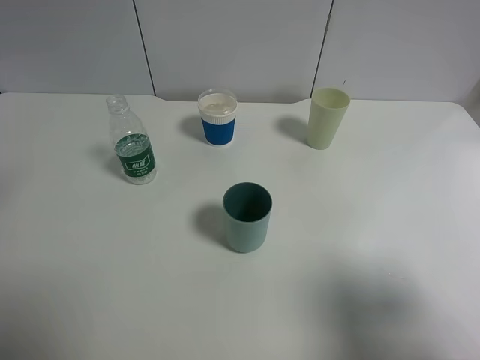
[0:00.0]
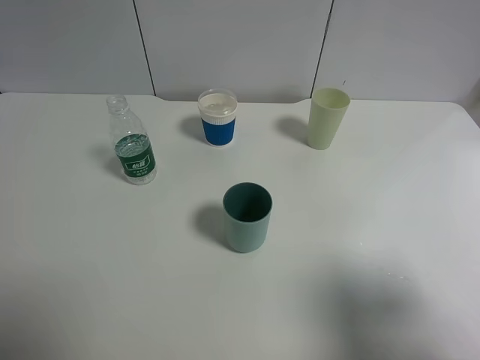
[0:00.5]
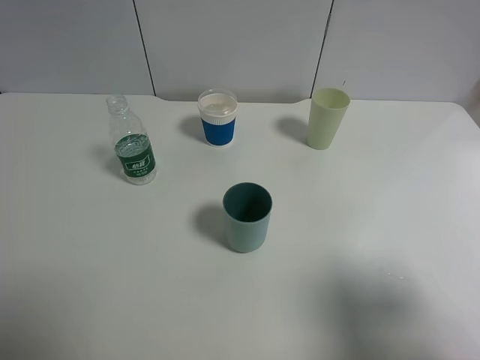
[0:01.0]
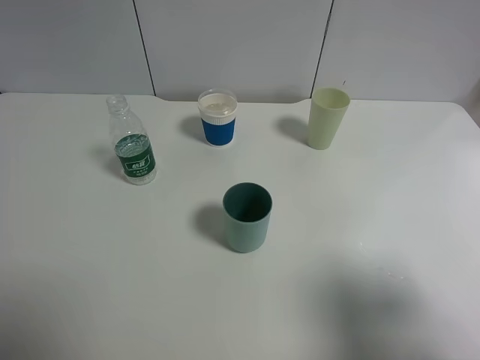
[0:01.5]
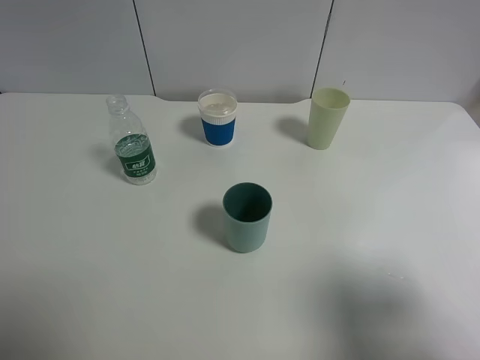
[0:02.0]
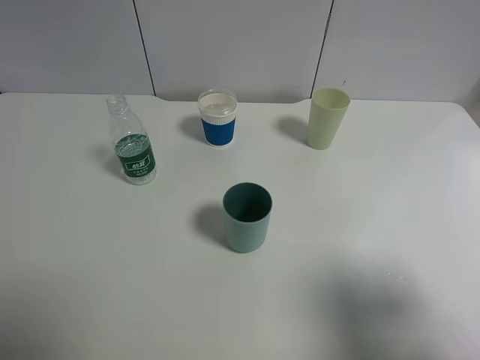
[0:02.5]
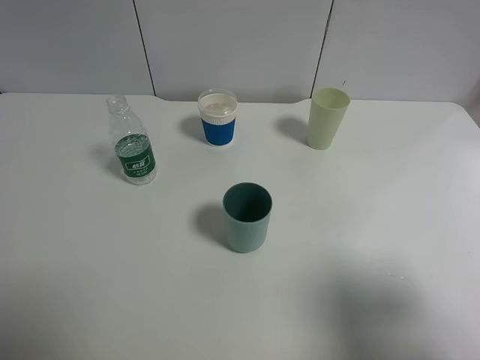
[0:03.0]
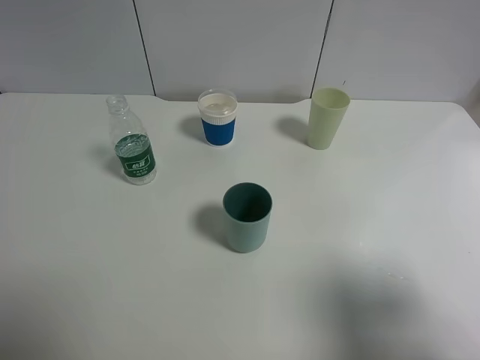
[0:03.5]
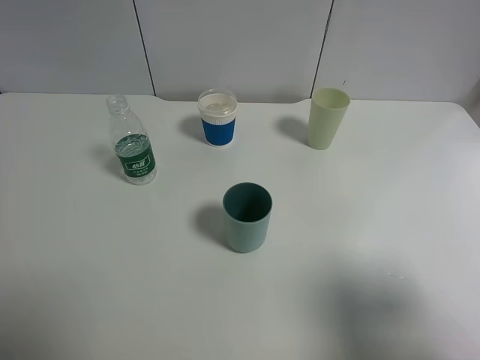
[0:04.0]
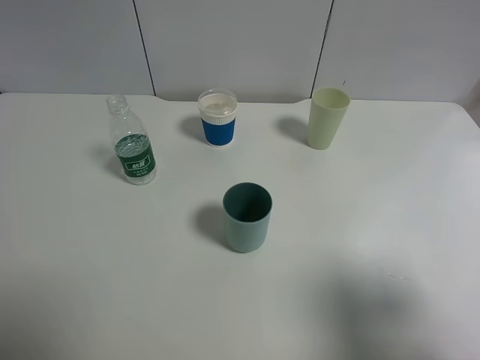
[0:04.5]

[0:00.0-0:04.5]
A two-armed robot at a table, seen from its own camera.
Task of the whole recording: use a gripper to hold the bottle of the drink and pour it into a random cup.
0:02.0 to 0:04.5: Neither gripper changes place.

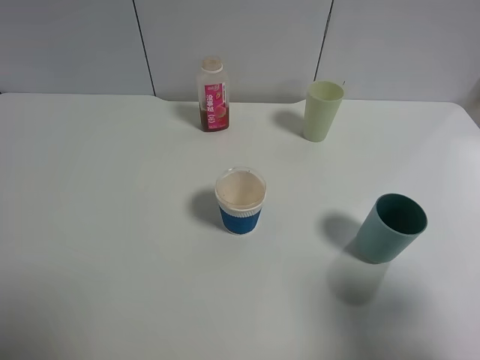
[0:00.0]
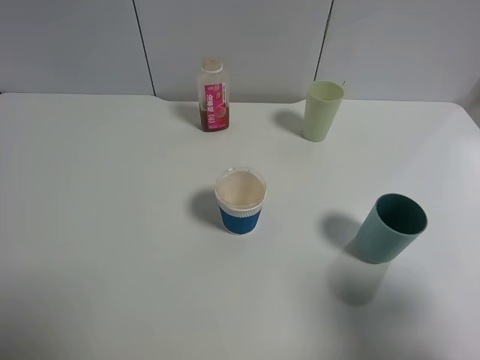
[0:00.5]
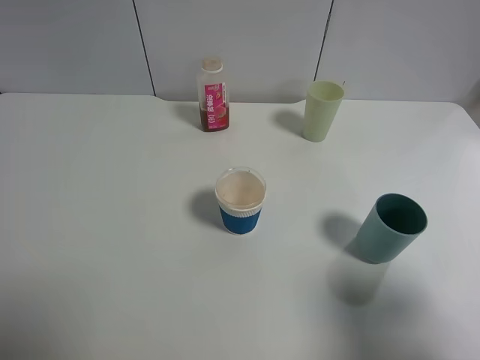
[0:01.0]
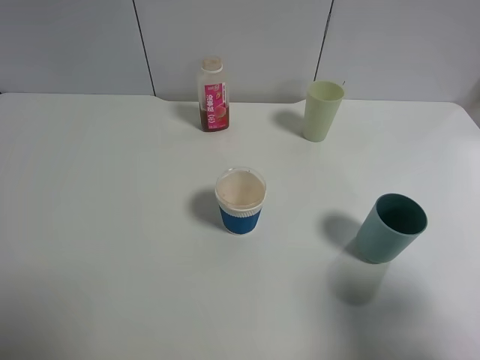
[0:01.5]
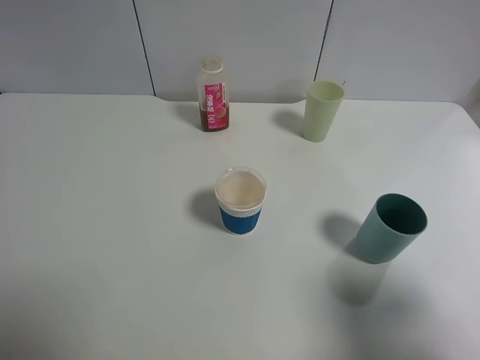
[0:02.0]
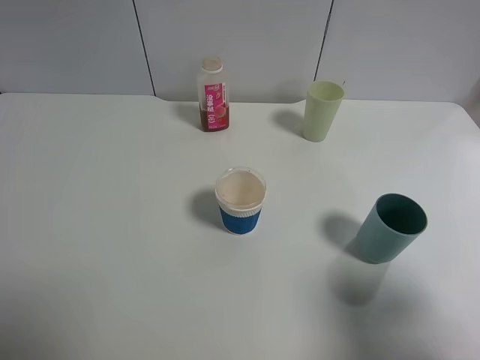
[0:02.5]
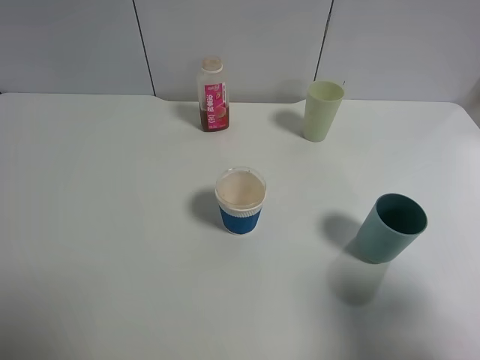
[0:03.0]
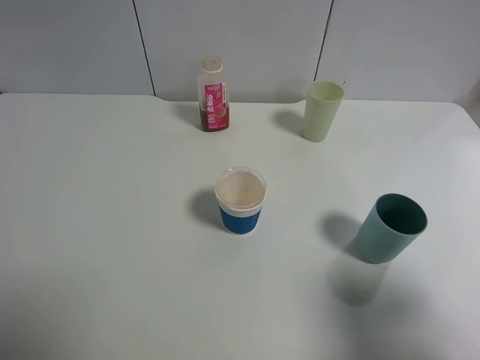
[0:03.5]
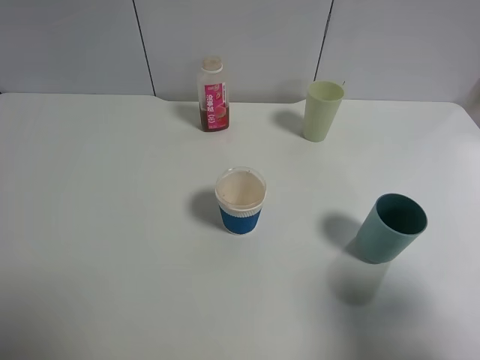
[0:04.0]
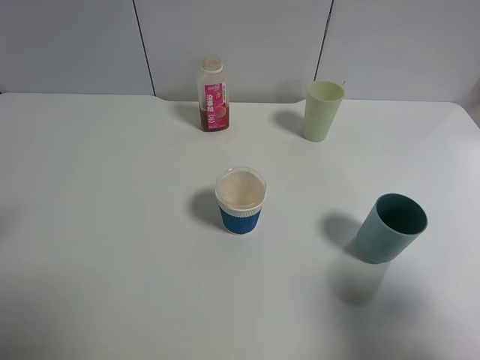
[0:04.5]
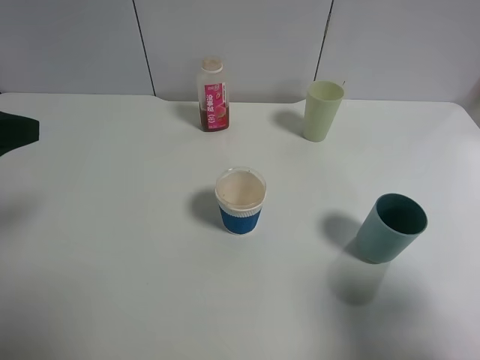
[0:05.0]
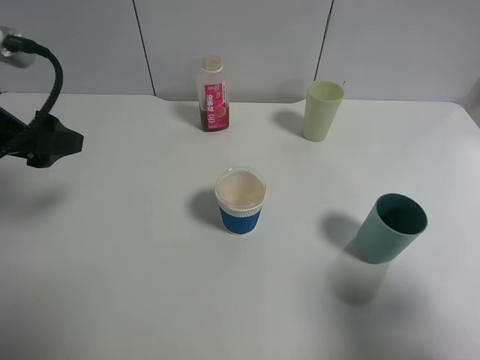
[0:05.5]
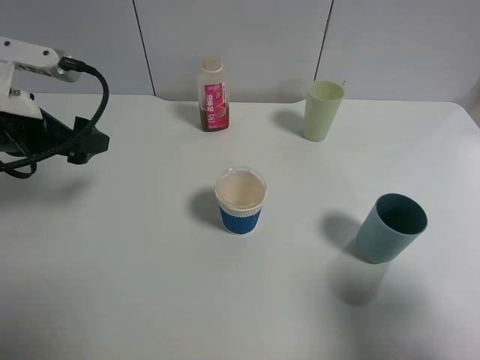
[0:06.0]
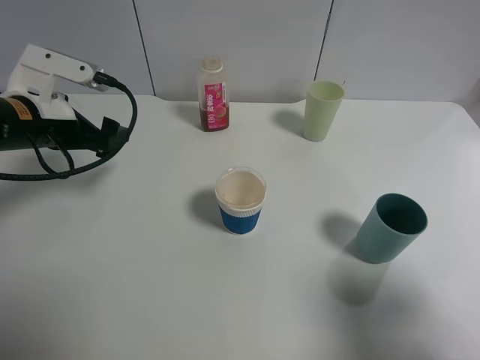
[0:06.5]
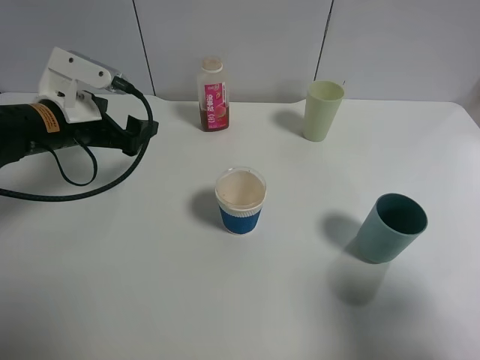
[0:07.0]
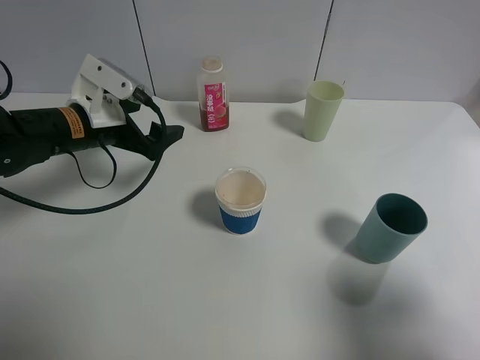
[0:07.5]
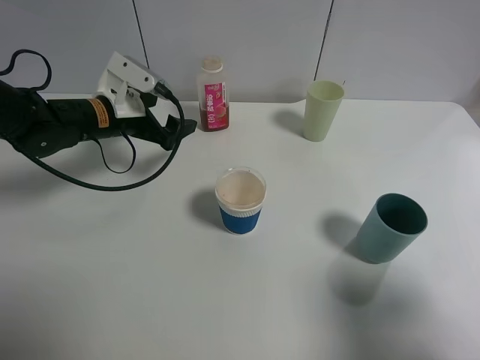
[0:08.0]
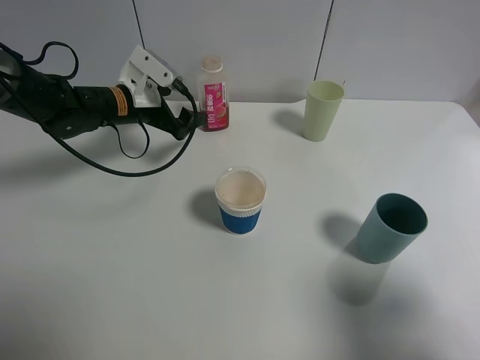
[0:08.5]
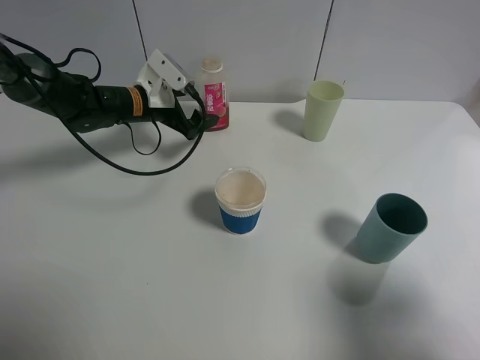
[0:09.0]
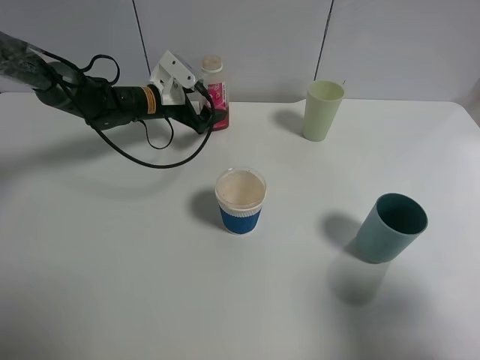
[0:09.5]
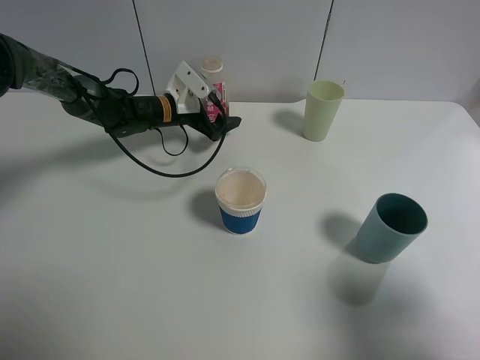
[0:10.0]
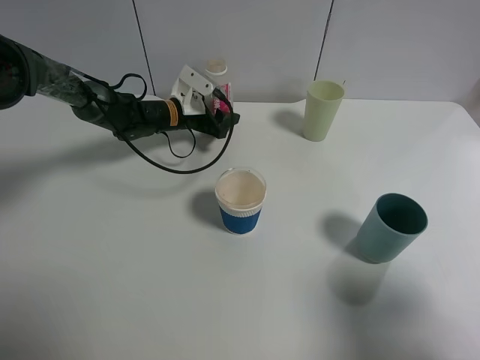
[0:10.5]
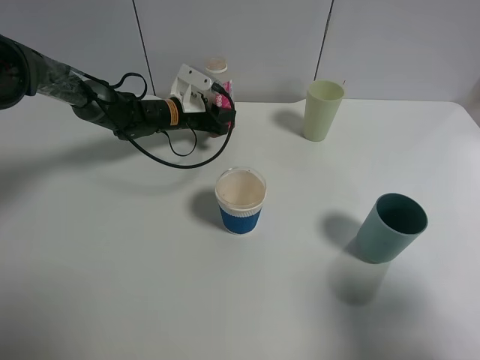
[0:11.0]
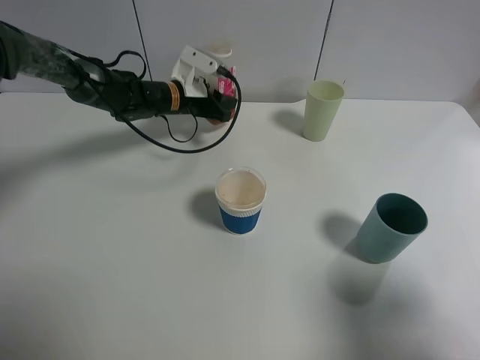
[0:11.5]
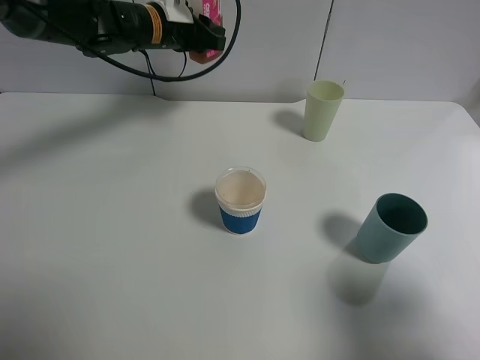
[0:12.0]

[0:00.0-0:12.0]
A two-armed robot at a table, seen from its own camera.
Task of the whole recording: use a gripper to hold the bottle of the drink and pour it into a random cup.
Step, 0:00.0 to 0:10.5: Grasp the cranberry juice bottle with the left gripper.
0:00.0 to 0:02.0: Both grippers stay about where they are.
0:04.0 to 0:06.0: The left gripper goes some 25 cm forward and downward.
0:06.0 to 0:08.0: The left gripper shifts some 15 cm forward, downward and to the right.
0:08.0 to 0:10.0: The left gripper travels forward, downward and to the right by approximately 15 cm.
0:10.0 to 0:12.0: The left gripper shifts roughly 15 cm upward, and closes its fingers.

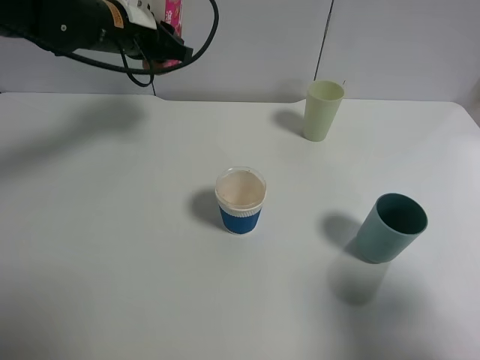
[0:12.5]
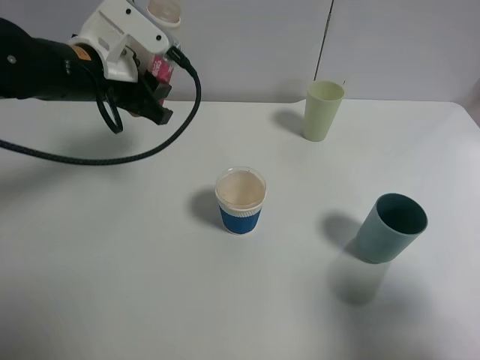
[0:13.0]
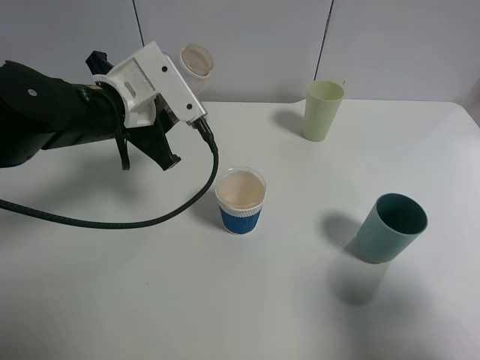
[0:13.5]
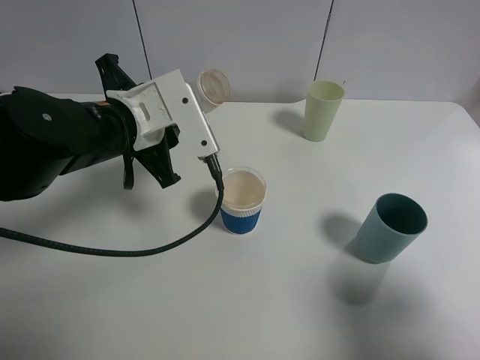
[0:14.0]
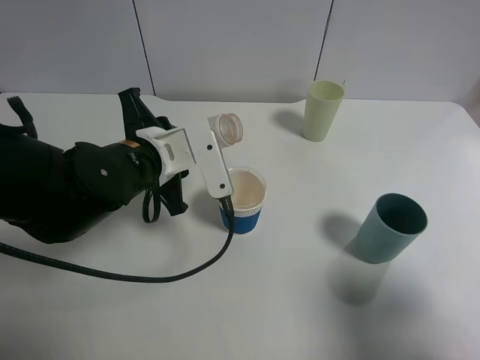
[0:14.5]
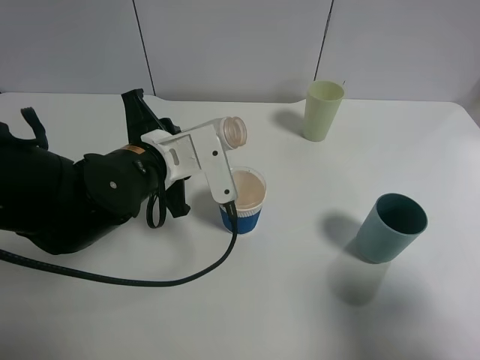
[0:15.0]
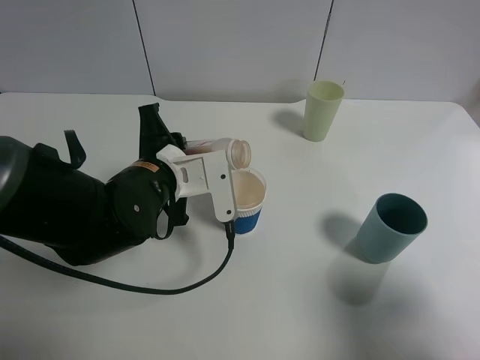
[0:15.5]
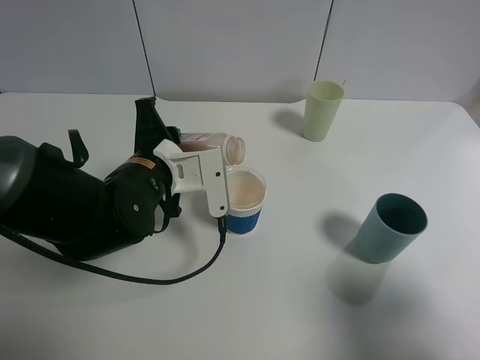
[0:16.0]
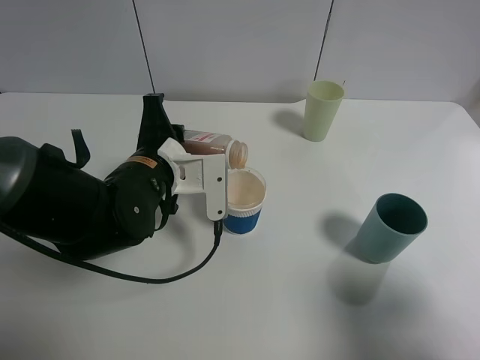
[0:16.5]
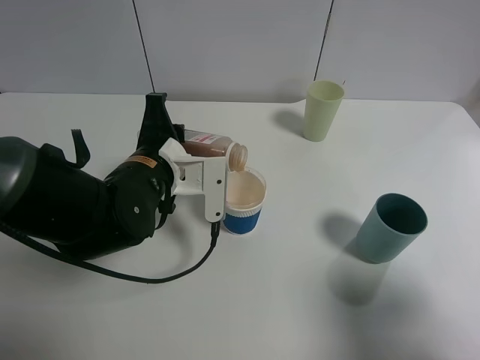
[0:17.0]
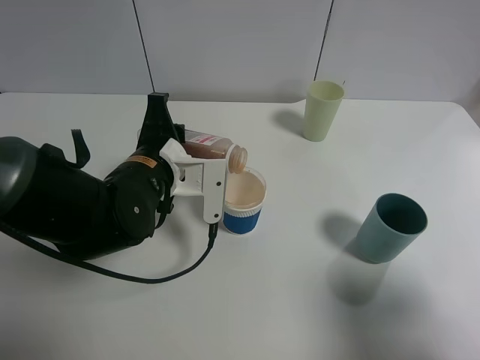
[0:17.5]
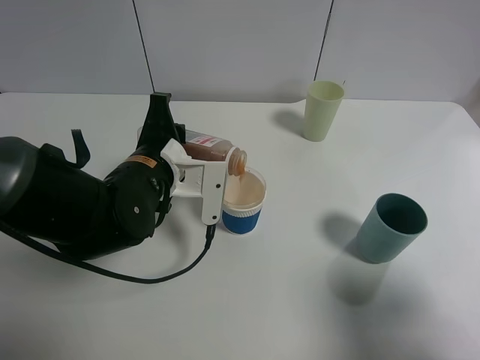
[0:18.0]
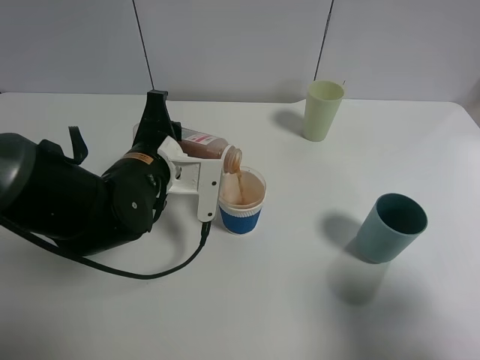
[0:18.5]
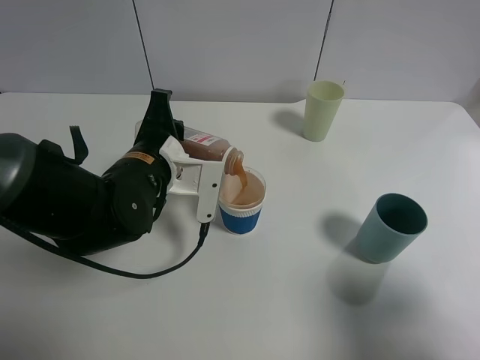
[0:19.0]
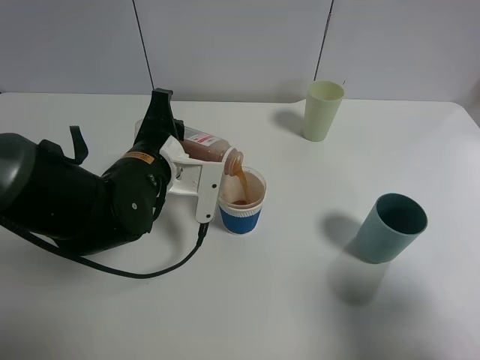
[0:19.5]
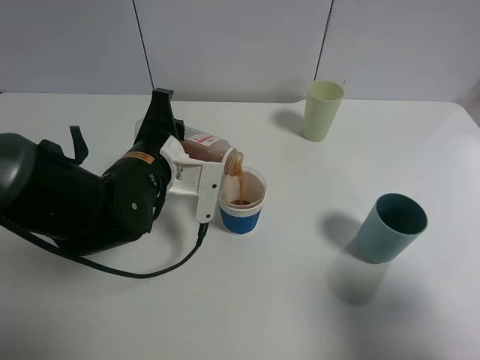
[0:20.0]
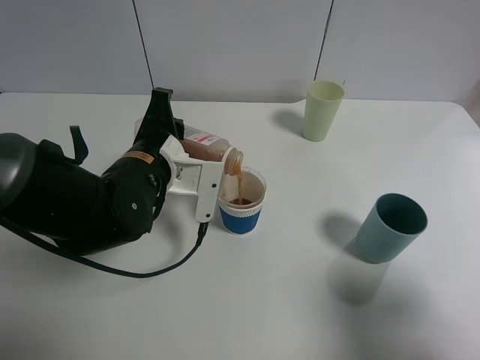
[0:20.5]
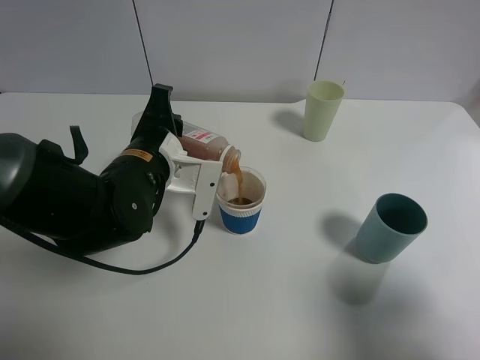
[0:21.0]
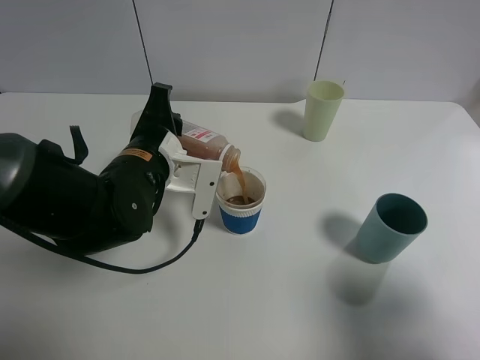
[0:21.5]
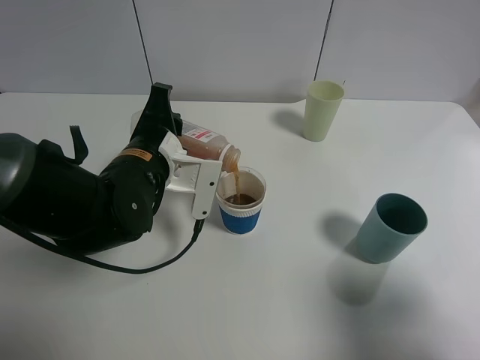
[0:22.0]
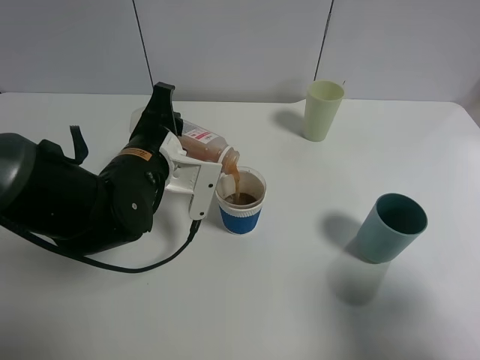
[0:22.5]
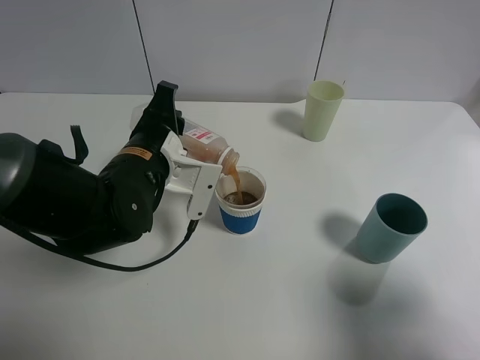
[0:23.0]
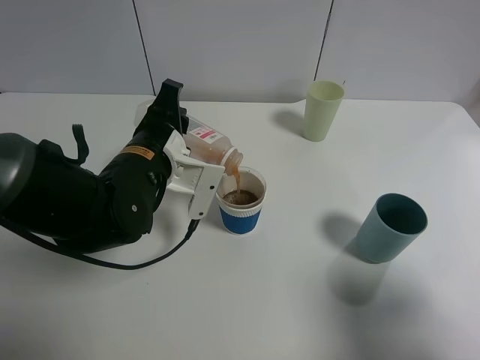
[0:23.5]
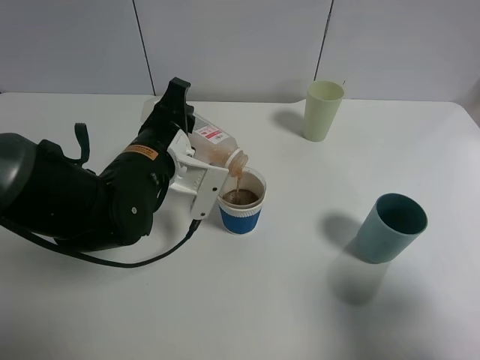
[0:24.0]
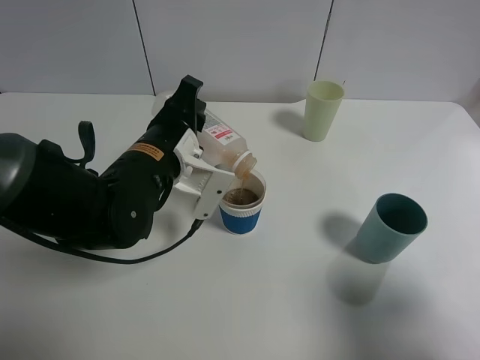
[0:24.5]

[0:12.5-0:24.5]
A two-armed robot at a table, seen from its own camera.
Task of the whole recording: use a gripper to hold the bottle of the drink and pour it into a random cup.
0:12.5 to 0:14.5: The left gripper moves backward and downward, about 15 cm.
0:16.5 to 0:18.5: The grippers move only a little.
0:18.5 to 0:20.5: Both grippers stay about where they are.
0:20.5 to 0:24.5: The grippers make only small movements.
